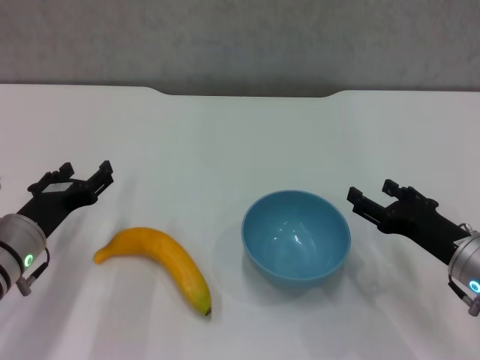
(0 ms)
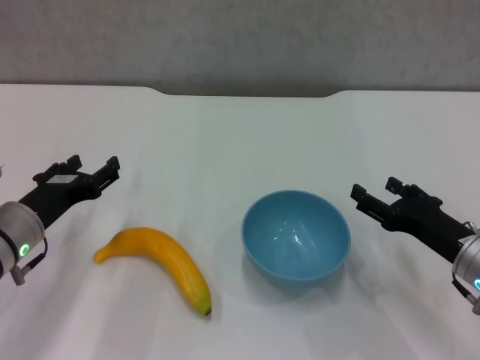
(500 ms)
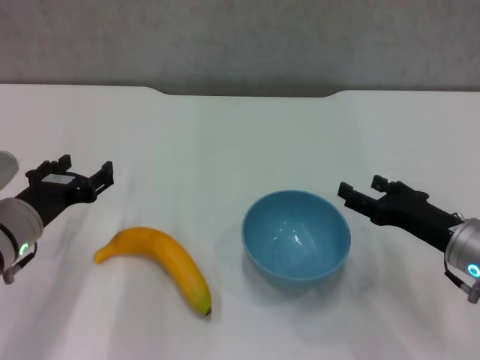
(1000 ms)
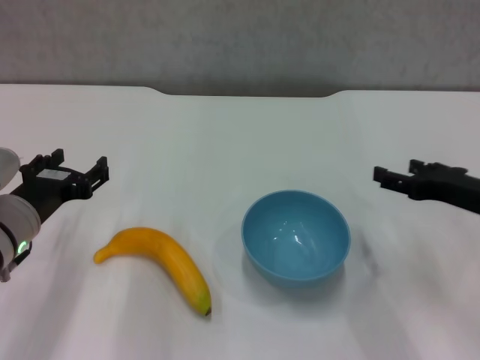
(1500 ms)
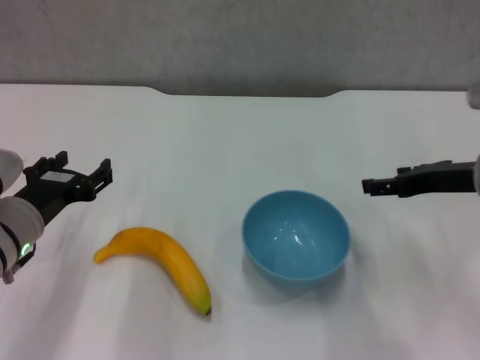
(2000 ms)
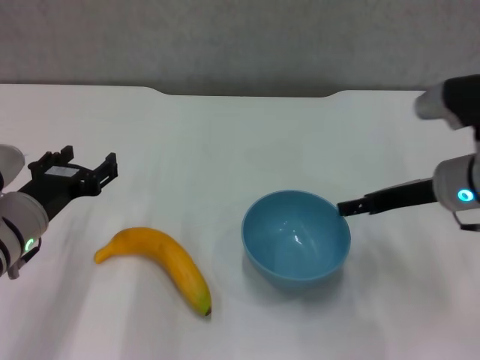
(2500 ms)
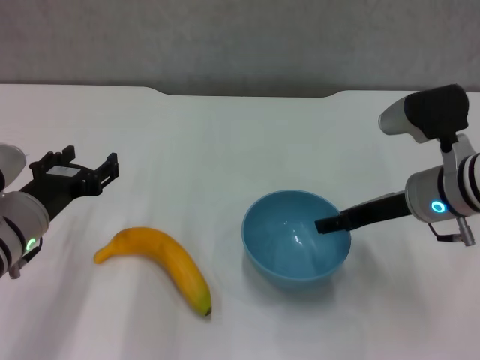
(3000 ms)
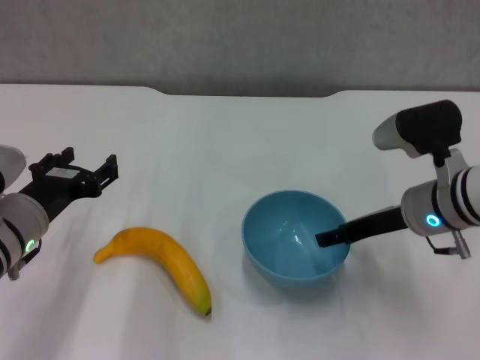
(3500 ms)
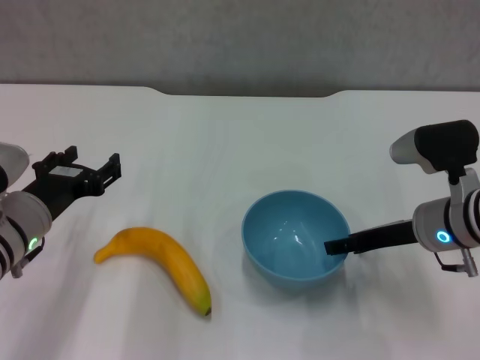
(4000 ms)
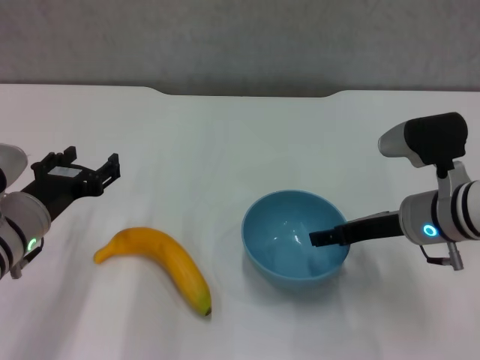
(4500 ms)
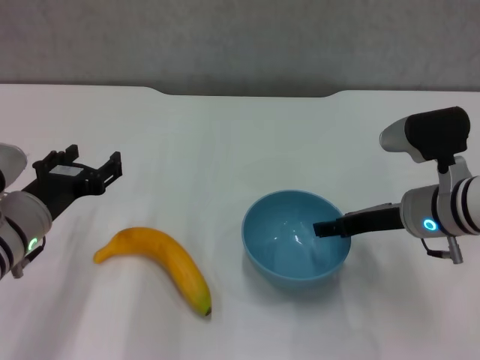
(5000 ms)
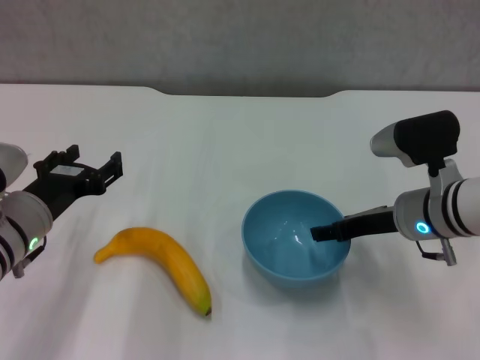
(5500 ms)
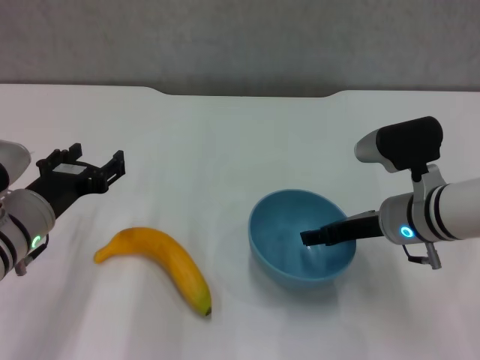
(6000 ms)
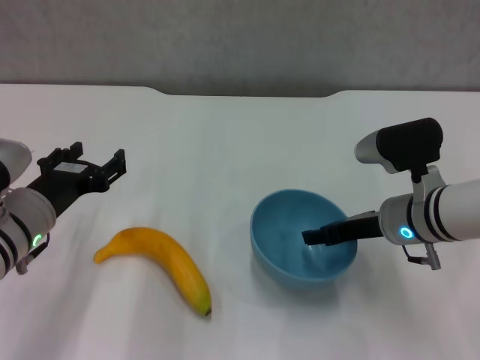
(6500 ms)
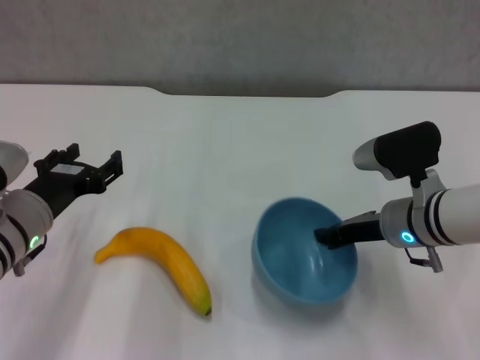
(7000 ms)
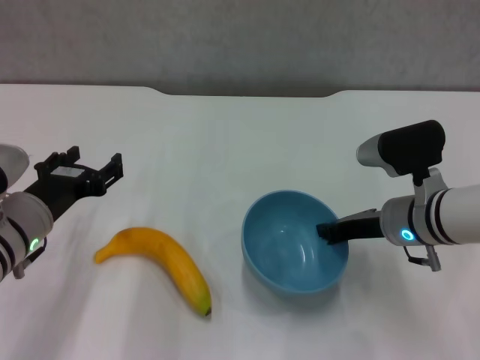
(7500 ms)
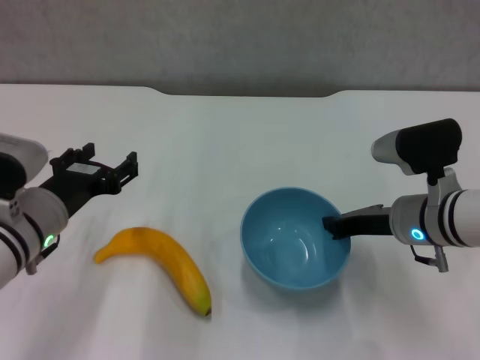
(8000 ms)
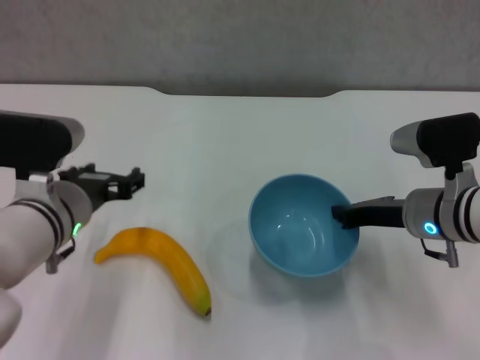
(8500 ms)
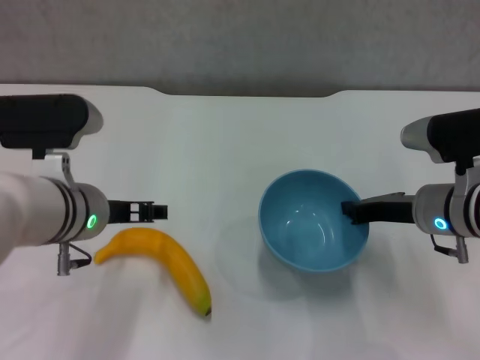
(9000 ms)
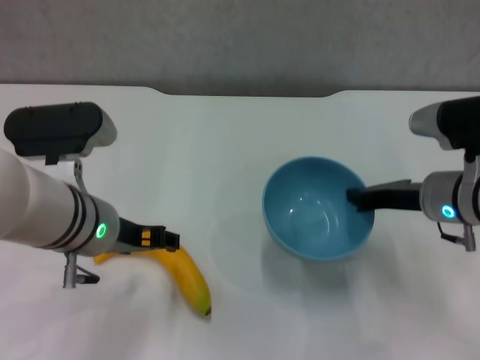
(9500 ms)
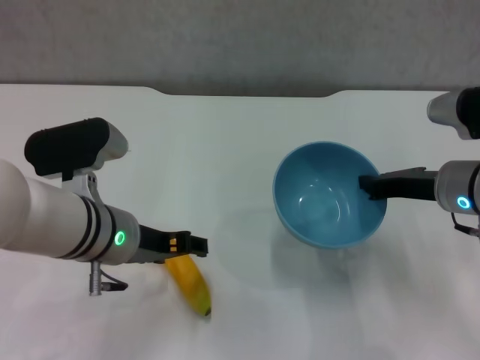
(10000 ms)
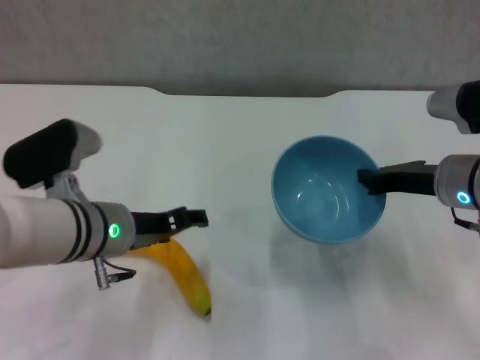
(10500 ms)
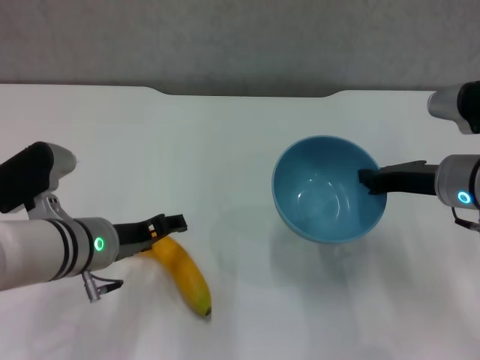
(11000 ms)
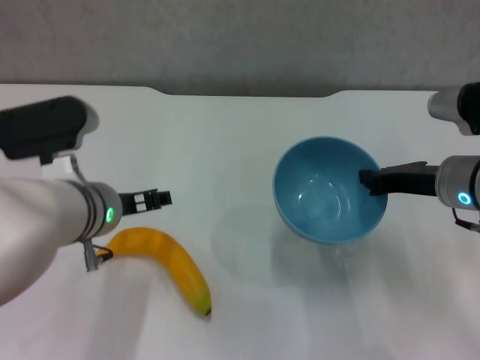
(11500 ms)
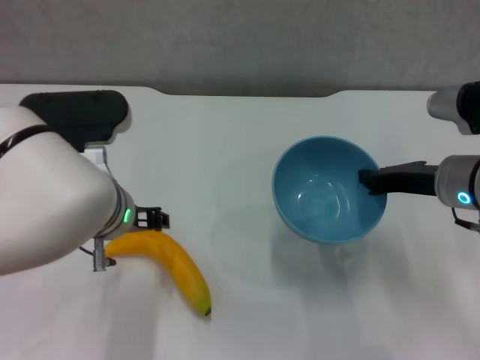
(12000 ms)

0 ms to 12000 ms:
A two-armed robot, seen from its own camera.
Step, 0 ms to 8000 ms: Grasp the blue bowl with right gripper.
Step, 8500 ms to 10000 ms: Lift the blue bowl with right gripper.
0 ms to 2000 ms: The right gripper heads upward and forward, covering about 10 cm.
2000 ms to 4000 ms: The right gripper heads downward, covering about 5 cm.
4000 ms to 6000 ms: There are only small adjustments of the grippers.
6000 ms to 8000 ms: The right gripper closes up.
8000 ms to 10000 ms: The left gripper is displaced to the right by about 10 cm, while the right gripper changes place by approximately 5 cm.

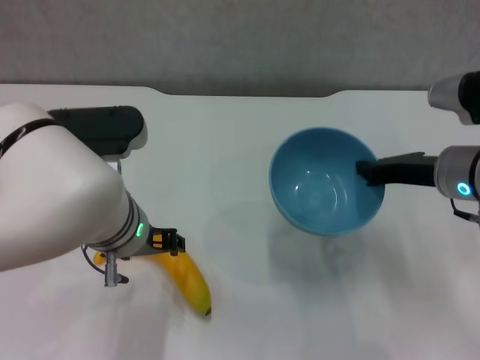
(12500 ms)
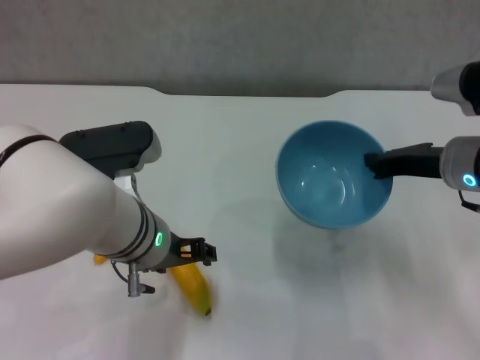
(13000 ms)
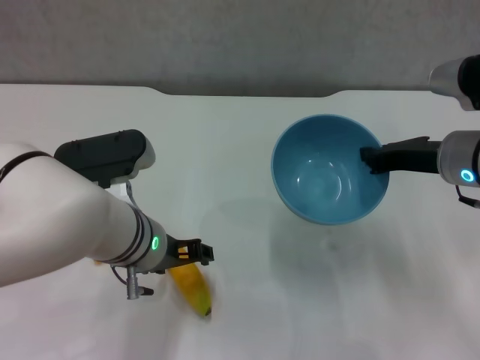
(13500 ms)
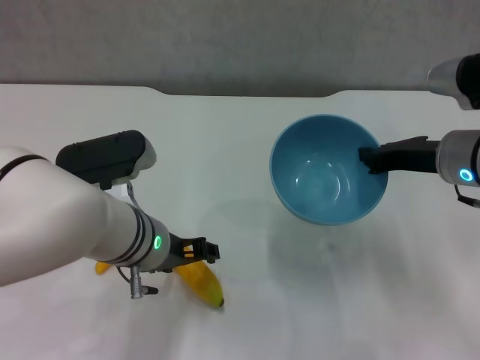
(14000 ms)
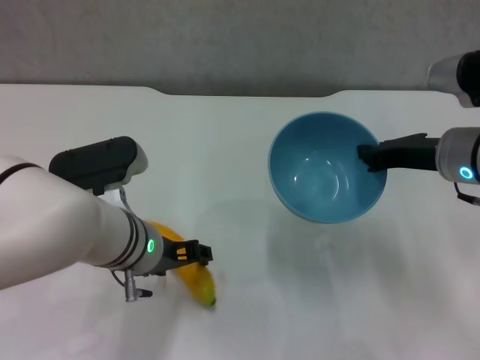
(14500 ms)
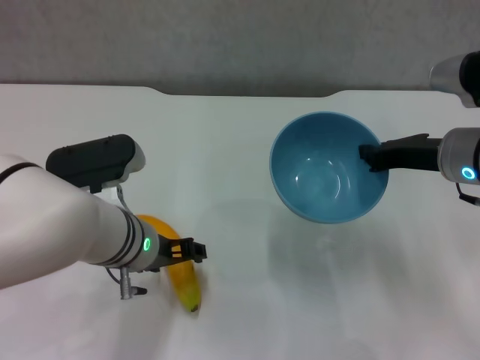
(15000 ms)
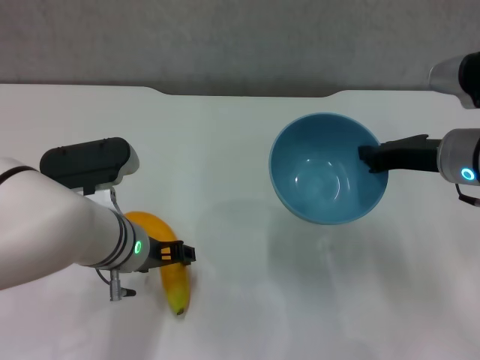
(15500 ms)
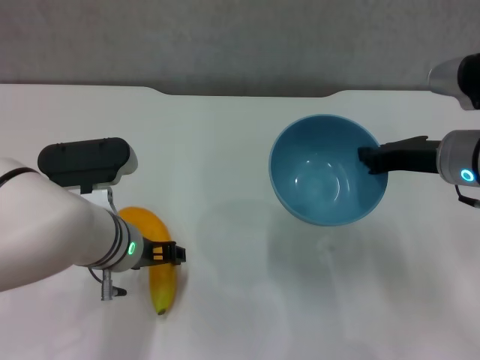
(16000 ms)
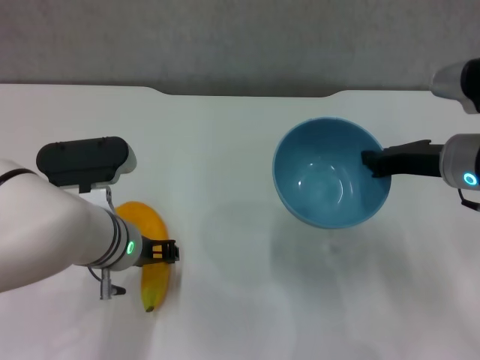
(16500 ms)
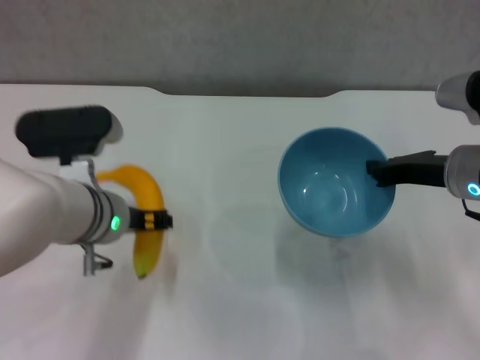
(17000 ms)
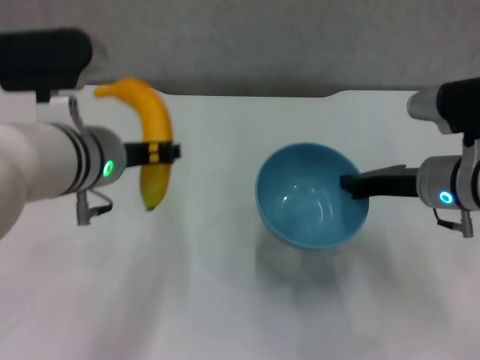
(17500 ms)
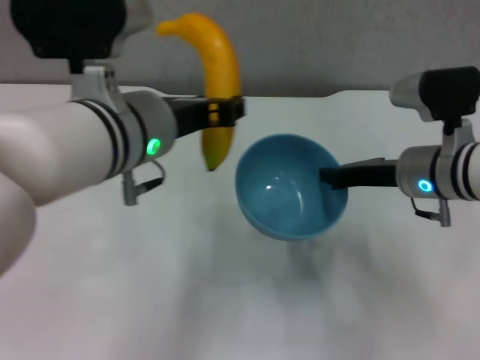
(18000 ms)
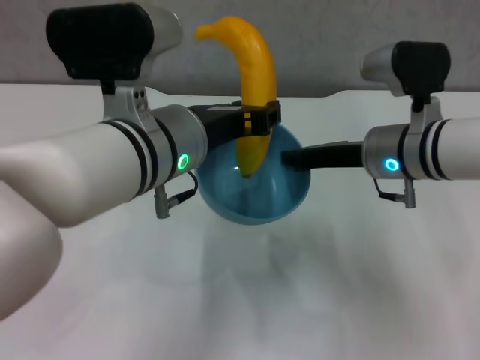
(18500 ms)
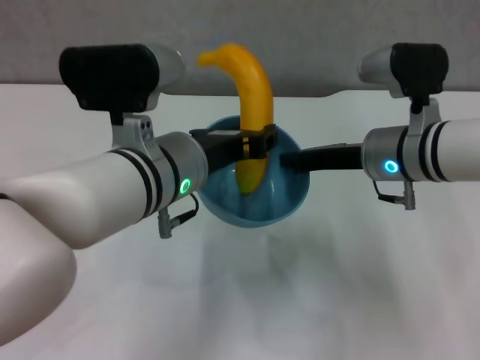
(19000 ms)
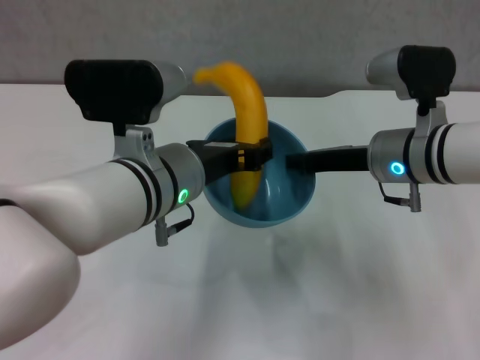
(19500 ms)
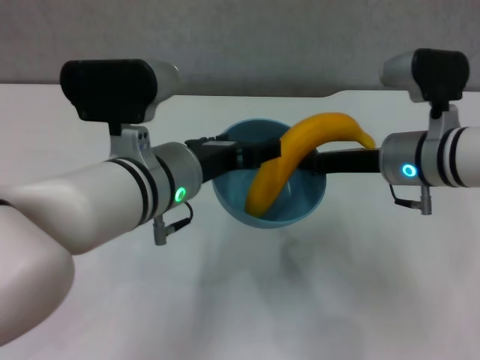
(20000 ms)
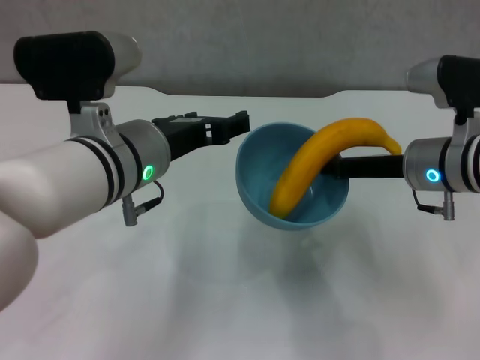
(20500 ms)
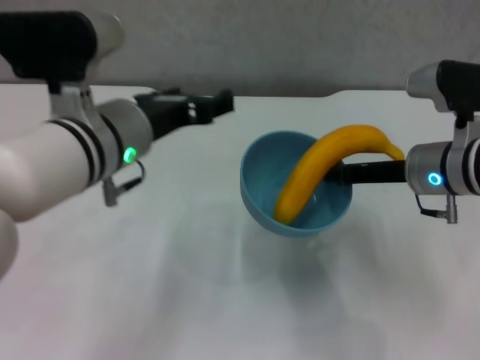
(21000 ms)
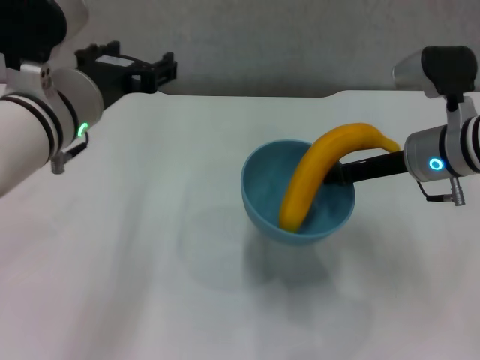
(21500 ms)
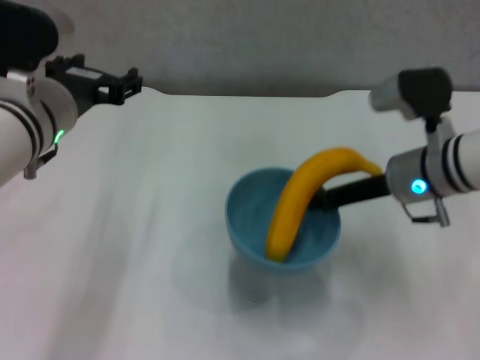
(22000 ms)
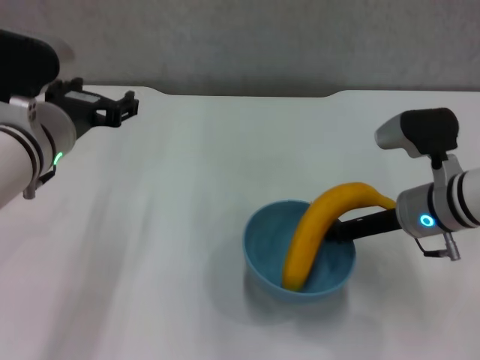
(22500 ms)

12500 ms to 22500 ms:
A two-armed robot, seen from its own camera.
Step, 12500 ms to 16000 ms: Grasp the banana with left gripper.
Step, 16500 ms to 19500 ms: Place the banana in the blue bowl with left gripper.
12500 ms to 14500 ms: The grippers move only a little.
14500 ms to 16500 ms: The left gripper closes.
16500 ms to 18500 ms: The left gripper goes some 15 cm upward and to the right, while the right gripper is displaced to the left by approximately 5 cm.
18500 ms to 20500 ms: The left gripper opens its fingers.
20500 ms to 22500 ms: The left gripper shifts some 10 cm to the left.

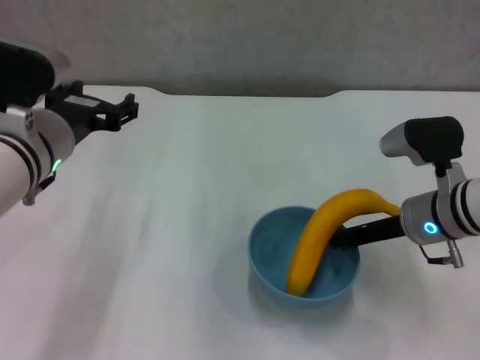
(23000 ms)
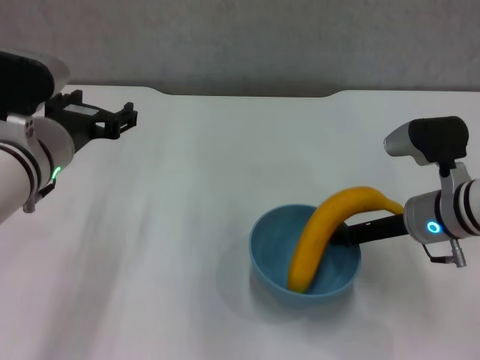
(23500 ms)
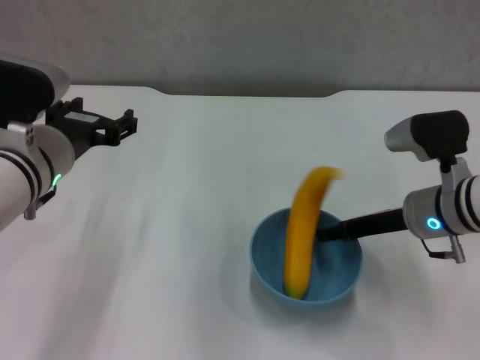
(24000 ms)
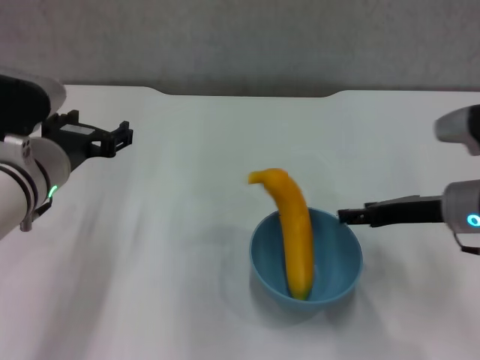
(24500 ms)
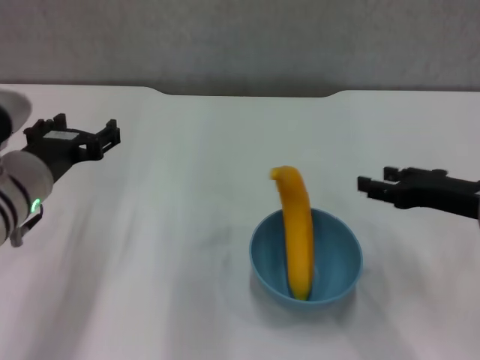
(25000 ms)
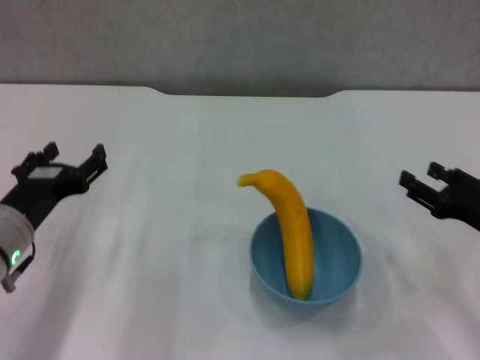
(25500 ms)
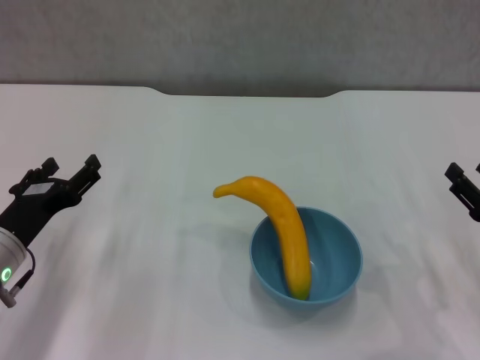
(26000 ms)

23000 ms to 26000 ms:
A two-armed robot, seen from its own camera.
23000 ms to 24500 ms: The right gripper opens.
24500 ms to 26000 ms: The left gripper is displaced downward, to the left and backward by roughly 10 cm, while the right gripper shifts approximately 15 cm backward and to the right.
